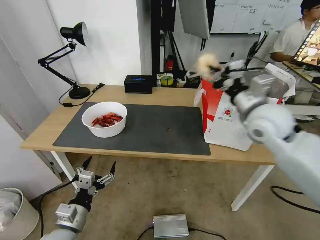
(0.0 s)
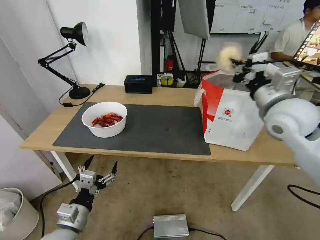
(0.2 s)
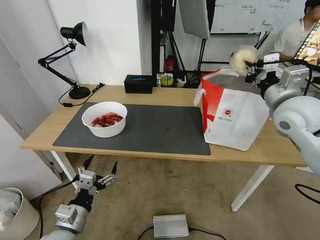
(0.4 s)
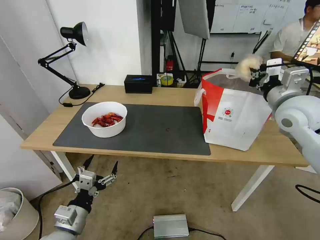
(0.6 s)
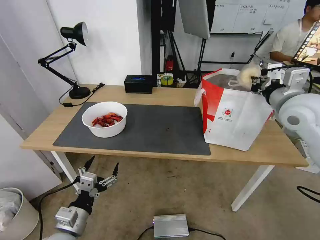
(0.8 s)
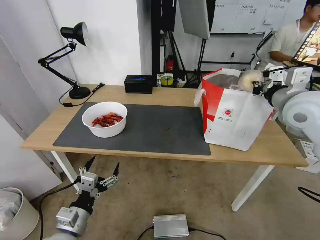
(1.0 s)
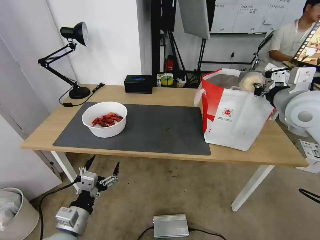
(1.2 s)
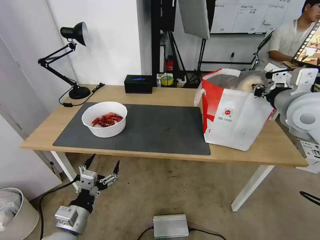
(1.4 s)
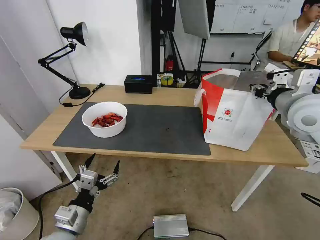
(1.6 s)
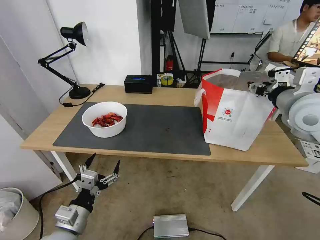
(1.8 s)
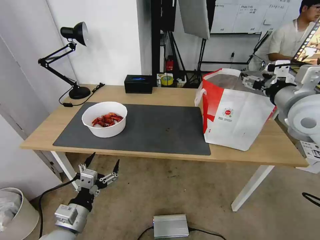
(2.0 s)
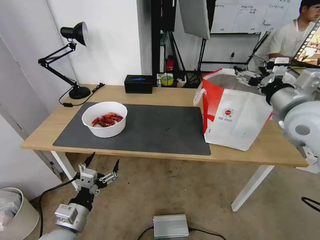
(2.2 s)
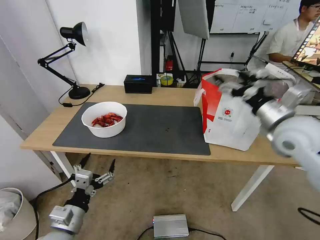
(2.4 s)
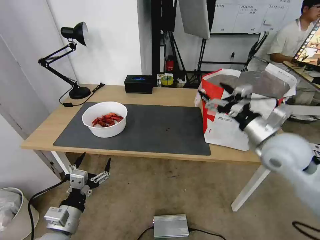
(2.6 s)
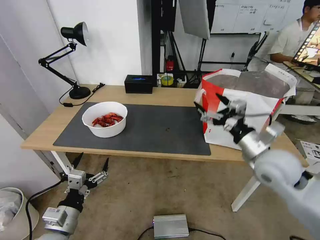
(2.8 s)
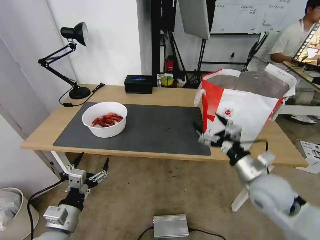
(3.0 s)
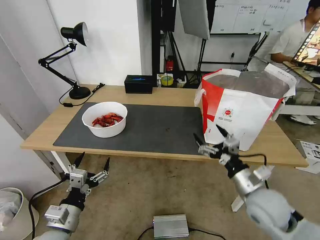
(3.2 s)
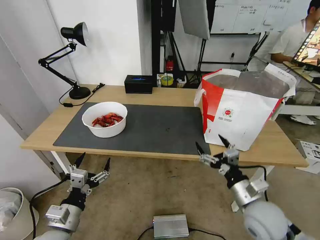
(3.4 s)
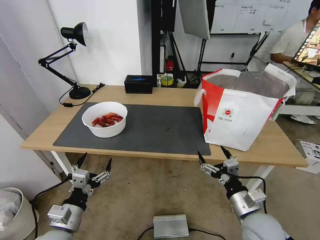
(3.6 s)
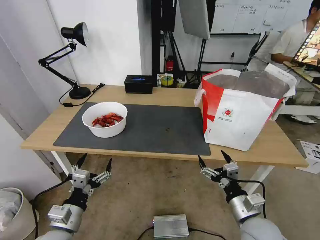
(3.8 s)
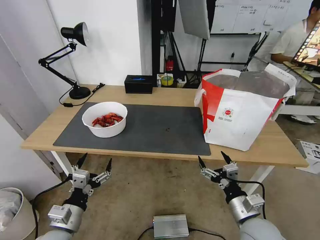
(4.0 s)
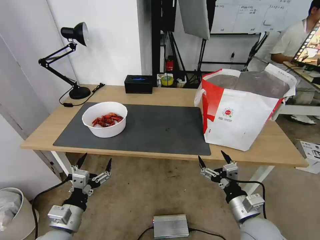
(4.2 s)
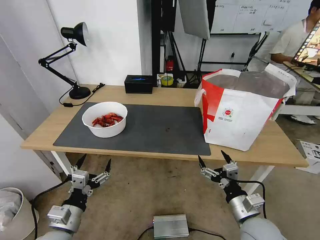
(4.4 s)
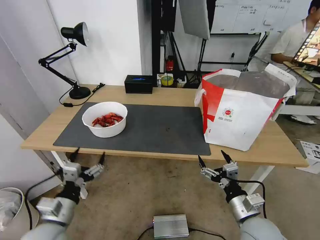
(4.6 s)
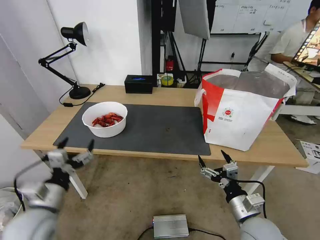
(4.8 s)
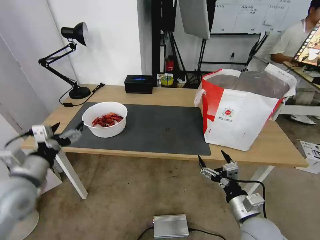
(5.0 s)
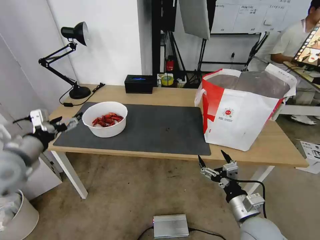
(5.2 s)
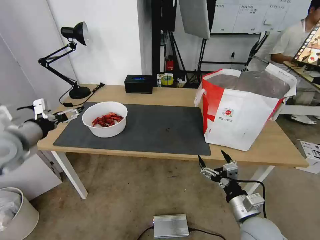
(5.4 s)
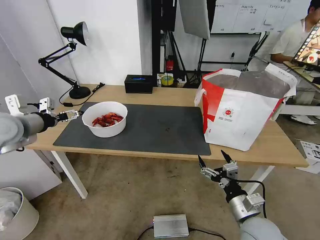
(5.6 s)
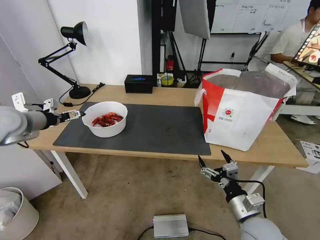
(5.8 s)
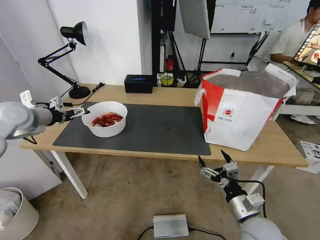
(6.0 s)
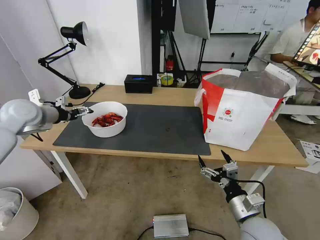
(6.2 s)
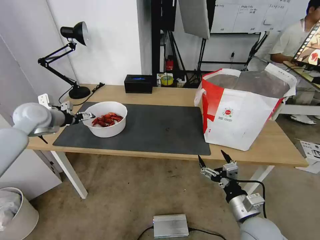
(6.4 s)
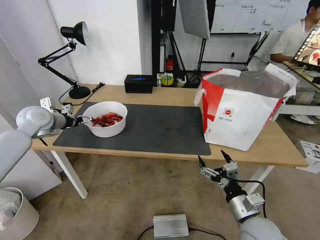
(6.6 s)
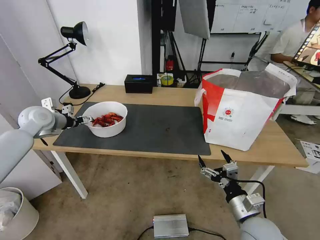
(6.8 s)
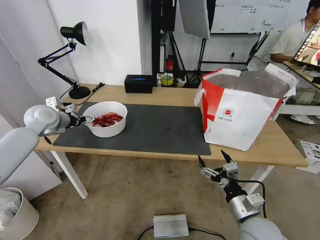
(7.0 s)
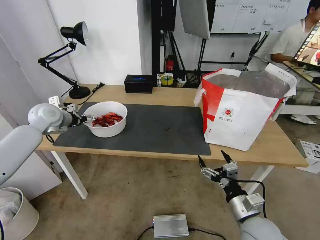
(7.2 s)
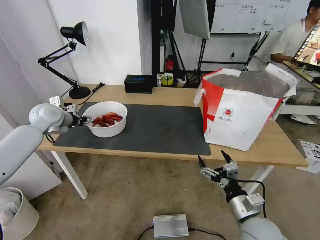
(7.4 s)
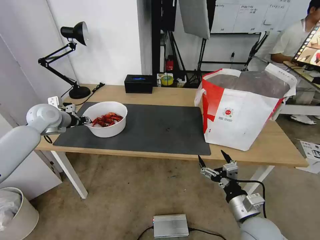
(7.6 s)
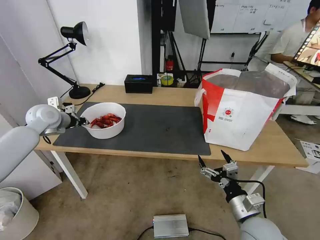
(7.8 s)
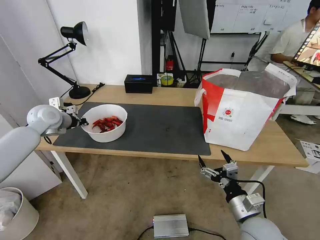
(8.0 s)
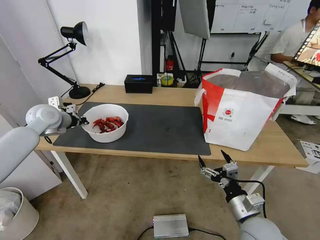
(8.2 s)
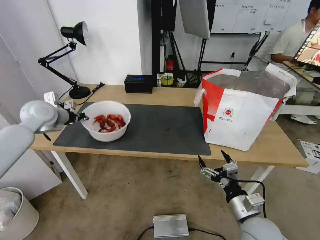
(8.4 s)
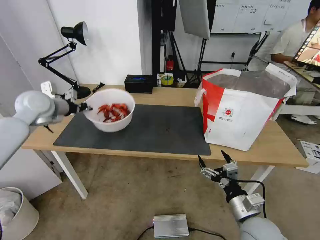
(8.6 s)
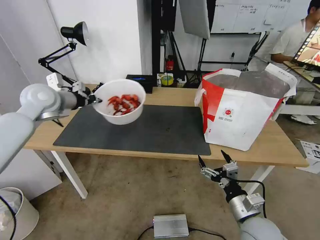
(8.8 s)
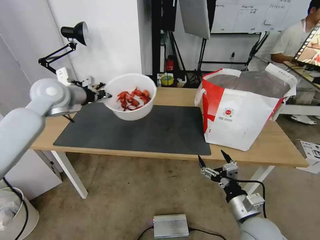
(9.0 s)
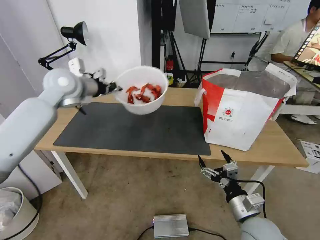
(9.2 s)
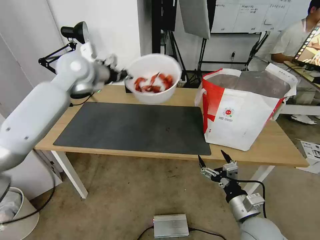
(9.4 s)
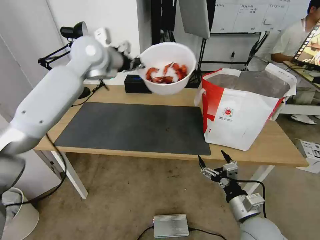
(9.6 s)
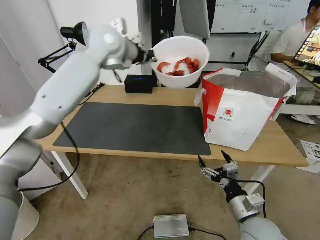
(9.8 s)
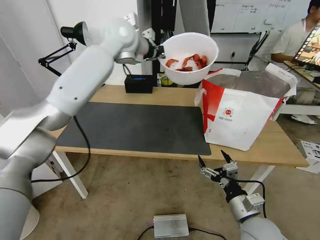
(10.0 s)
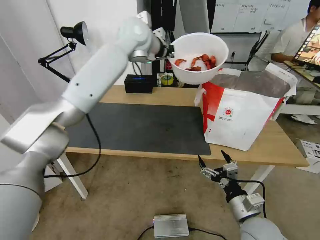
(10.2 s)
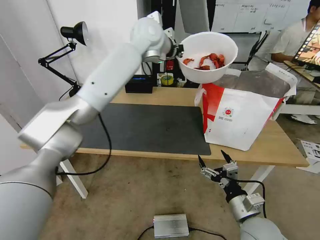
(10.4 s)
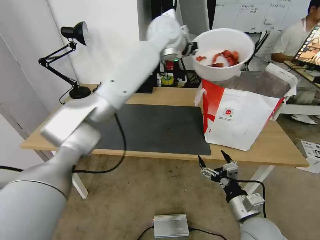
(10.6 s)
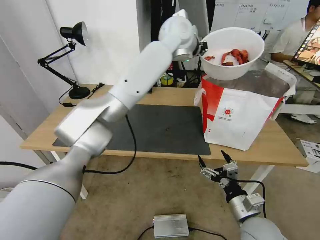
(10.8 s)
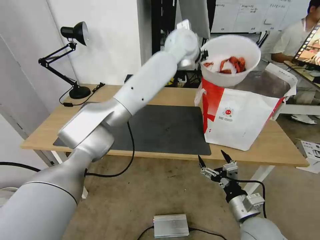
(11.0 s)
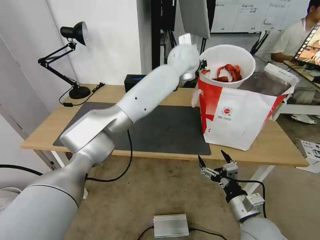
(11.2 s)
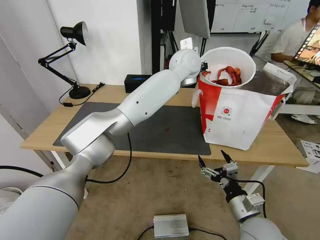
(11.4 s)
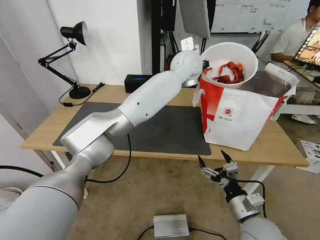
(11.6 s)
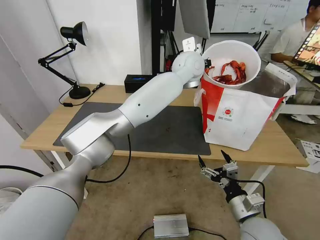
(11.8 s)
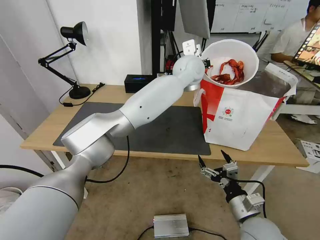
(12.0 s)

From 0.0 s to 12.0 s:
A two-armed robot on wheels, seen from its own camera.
Task of the whole recording: Pick up the trash from the table and place it into the takeout bag.
From 0.0 s to 1.6 s: The right gripper moves to the right, some 5 cm.
From 1.6 s to 3.0 s: The right gripper is displaced downward and backward by roughly 20 cm, and opens up.
From 3.0 s to 4.4 s: The right gripper is displaced downward and backward by roughly 15 cm.
From 4.4 s to 6.0 s: The left gripper moves forward, upward and to the left, roughly 40 cm.
From 6.0 s to 7.6 s: The left gripper travels forward and downward by some 10 cm, and closes its fingers.
From 7.6 s to 9.0 s: The left gripper is displaced upward and to the right by about 15 cm, and closes.
From 9.0 s to 10.4 s: The left gripper is displaced to the right and upward by approximately 30 cm.
From 10.4 s to 12.0 s: The left gripper heads to the right and downward, covering about 15 cm.

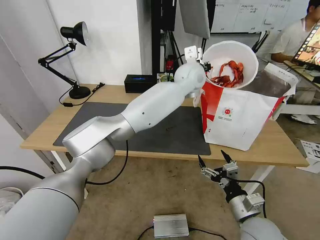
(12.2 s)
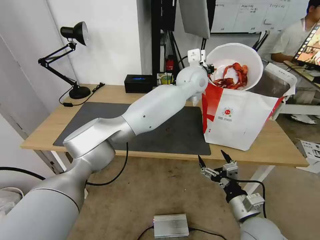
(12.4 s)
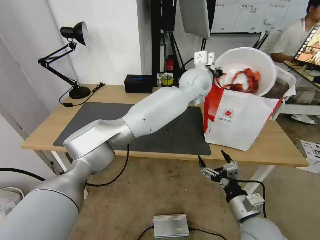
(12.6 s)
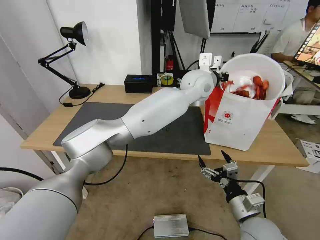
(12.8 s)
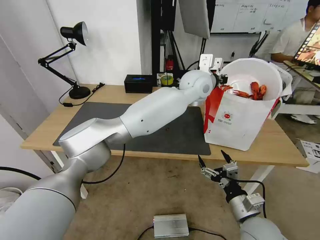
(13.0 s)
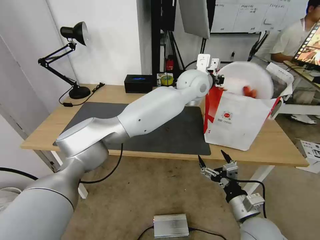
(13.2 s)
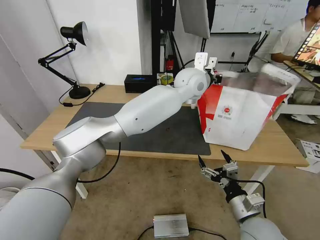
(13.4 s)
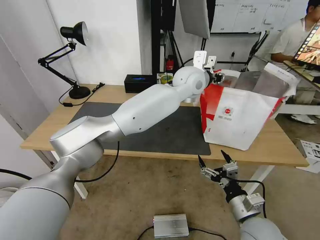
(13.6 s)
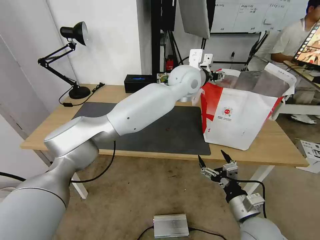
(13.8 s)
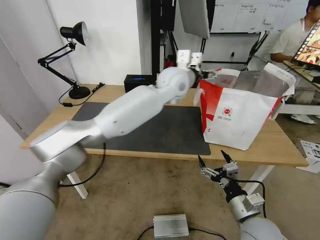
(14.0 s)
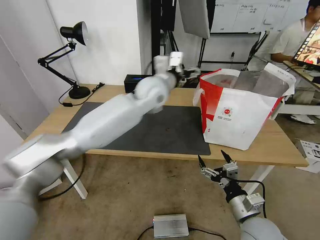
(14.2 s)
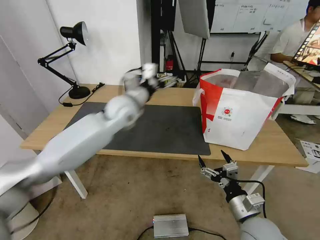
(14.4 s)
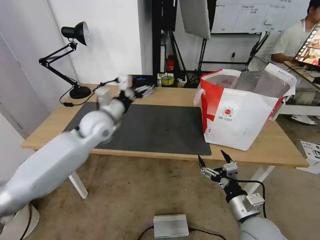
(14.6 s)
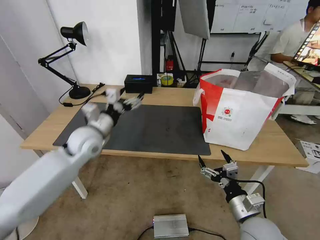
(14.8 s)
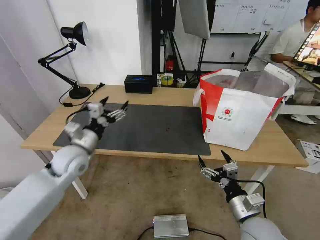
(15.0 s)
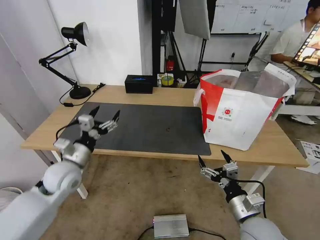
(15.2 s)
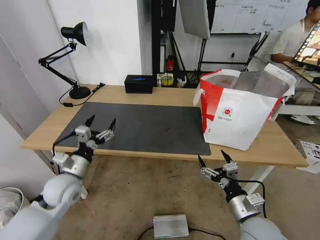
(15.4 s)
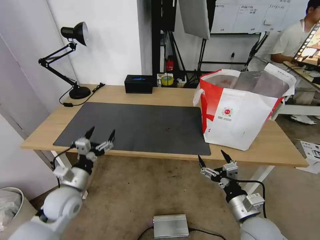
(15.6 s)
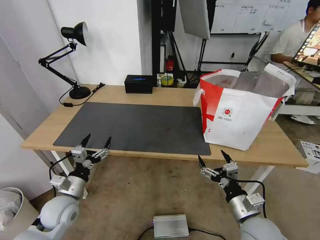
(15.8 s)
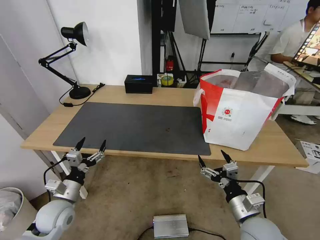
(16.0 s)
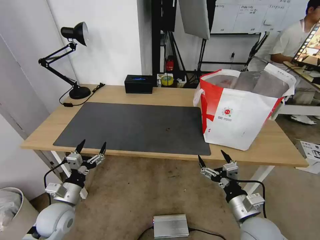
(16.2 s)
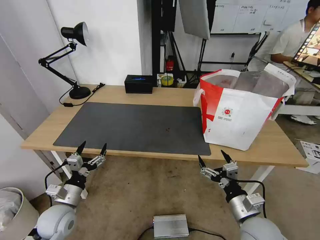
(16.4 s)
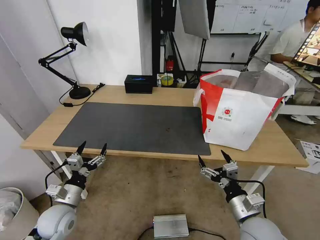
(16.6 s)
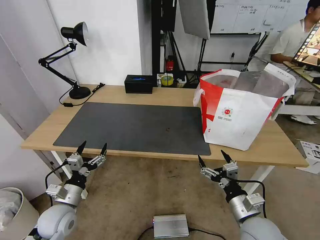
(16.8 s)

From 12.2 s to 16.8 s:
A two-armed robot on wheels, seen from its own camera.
Task of the whole recording: Pick up the trash from the table and place it into the takeout bag.
From 12.2 s to 13.8 s: The left gripper opens its fingers.
From 13.8 s to 15.2 s: The left gripper travels to the left, downward and backward by about 50 cm.
From 15.2 s to 16.8 s: The left gripper shifts roughly 15 cm downward and backward.

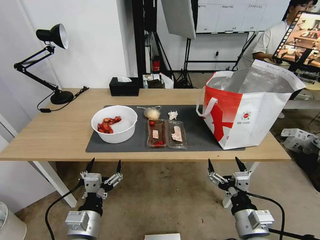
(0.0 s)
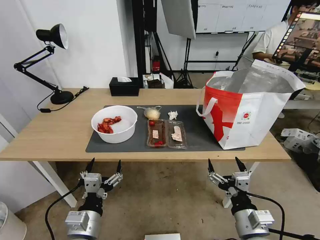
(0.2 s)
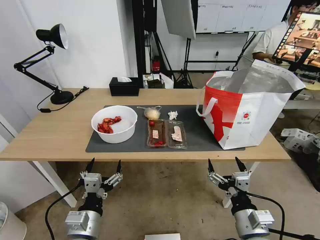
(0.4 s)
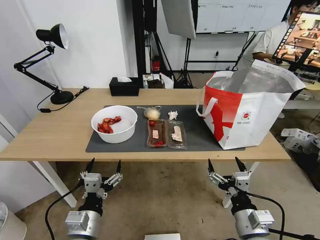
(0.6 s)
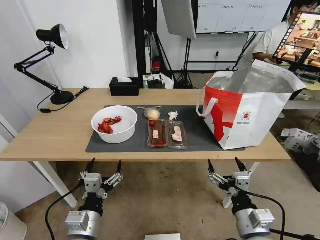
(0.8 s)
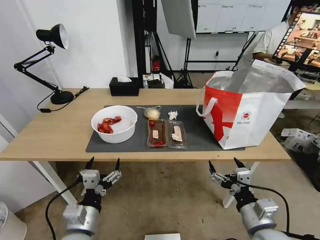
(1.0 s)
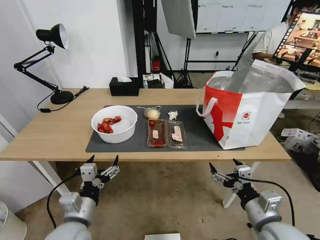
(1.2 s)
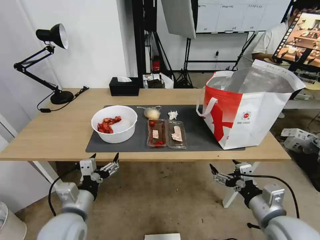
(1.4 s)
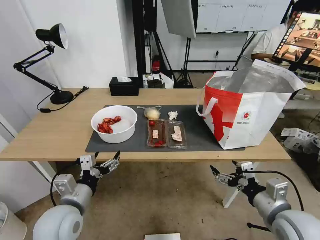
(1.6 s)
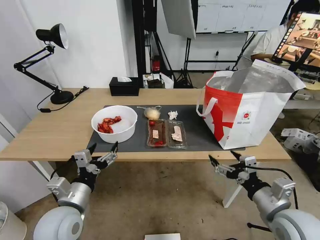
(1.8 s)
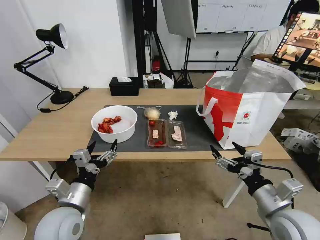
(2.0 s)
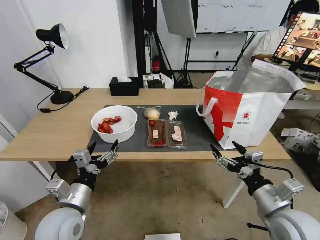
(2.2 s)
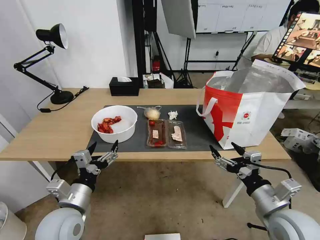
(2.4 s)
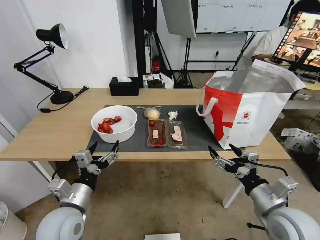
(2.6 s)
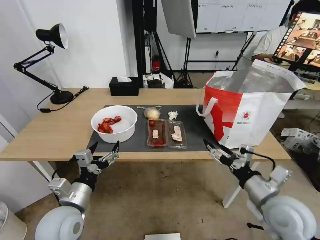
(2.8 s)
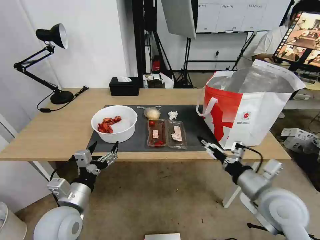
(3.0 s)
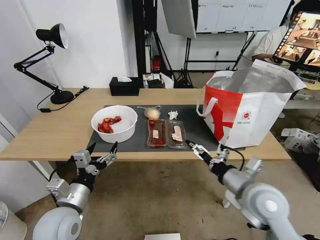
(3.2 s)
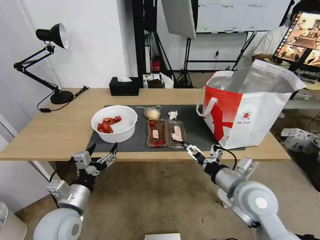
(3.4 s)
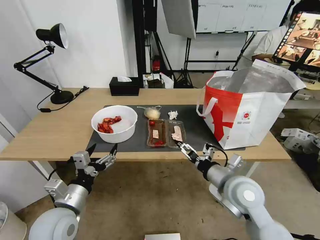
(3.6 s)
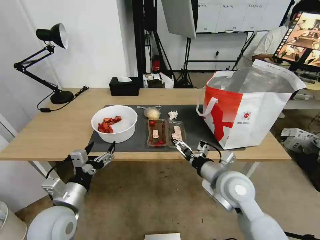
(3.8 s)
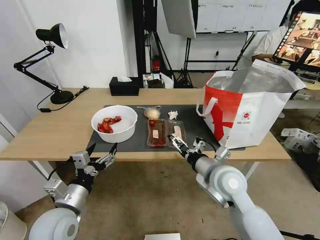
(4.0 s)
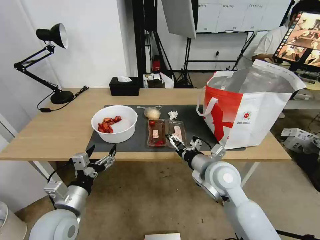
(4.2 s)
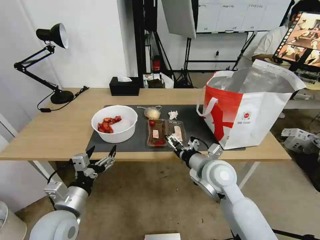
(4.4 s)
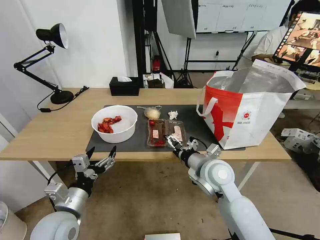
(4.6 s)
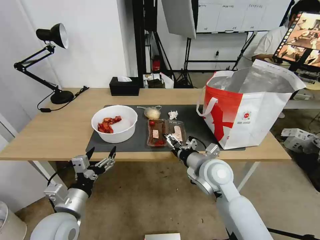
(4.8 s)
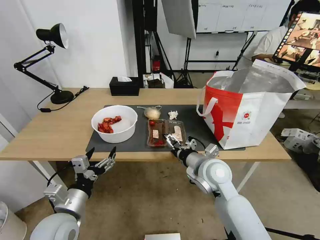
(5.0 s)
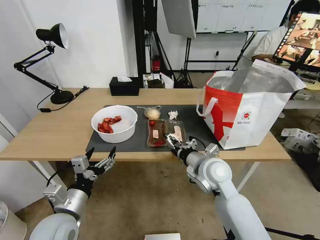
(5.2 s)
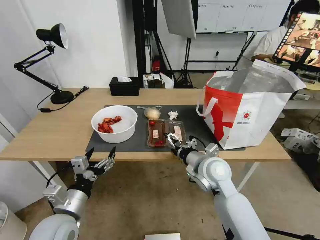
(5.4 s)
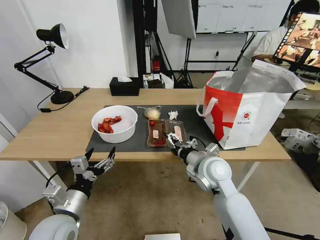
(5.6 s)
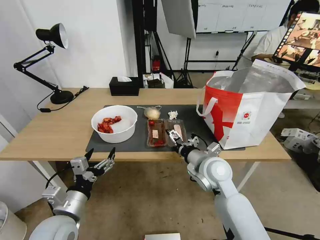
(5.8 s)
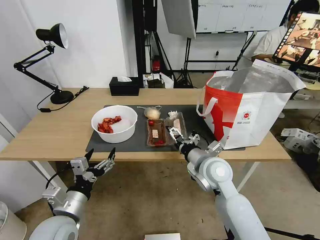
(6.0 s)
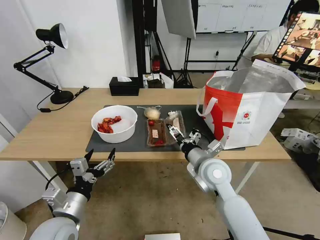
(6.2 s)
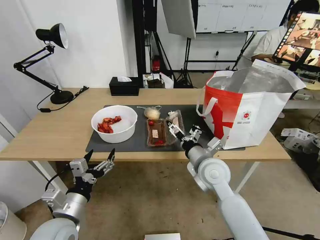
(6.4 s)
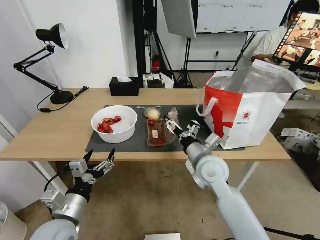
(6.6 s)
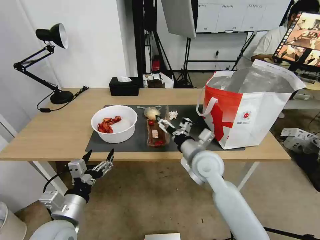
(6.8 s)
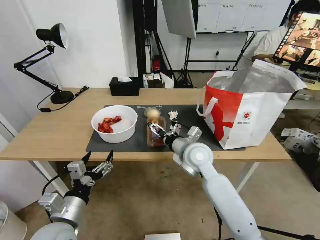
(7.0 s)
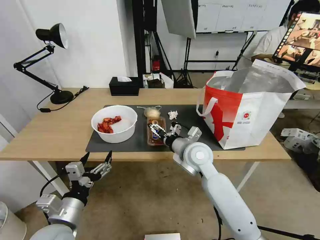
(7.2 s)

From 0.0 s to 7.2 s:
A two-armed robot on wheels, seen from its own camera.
Task of the whole recording: Pick up the trash from the table and place it into the takeout bag.
From 2.8 s to 4.4 s: The right gripper shifts roughly 20 cm to the left and forward.
From 4.4 s to 5.8 s: There are only small adjustments of the grippers.
From 5.8 s to 7.2 s: The right gripper ends up approximately 5 cm from where it was.
